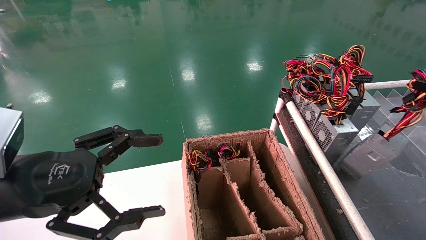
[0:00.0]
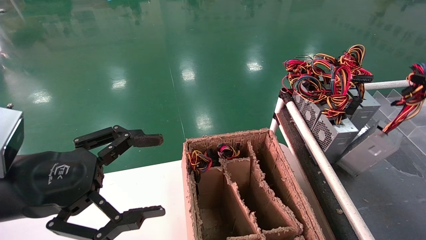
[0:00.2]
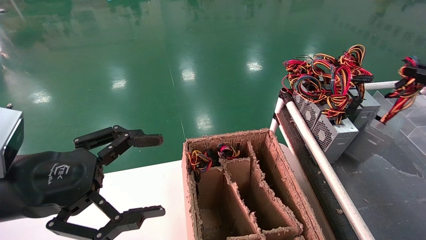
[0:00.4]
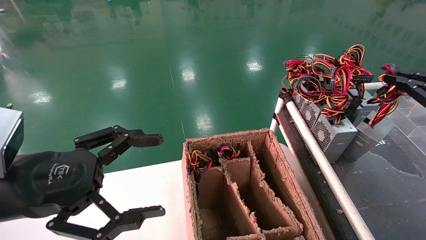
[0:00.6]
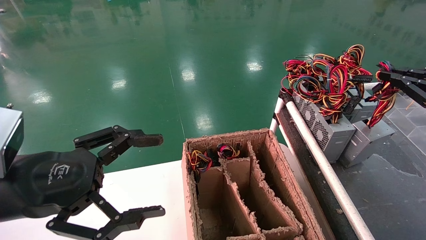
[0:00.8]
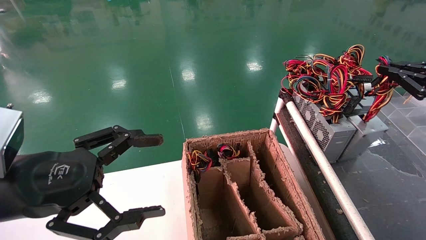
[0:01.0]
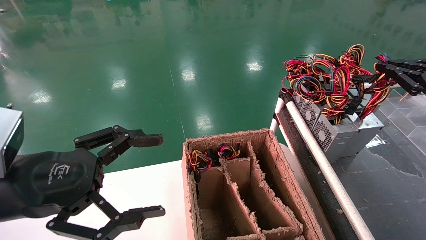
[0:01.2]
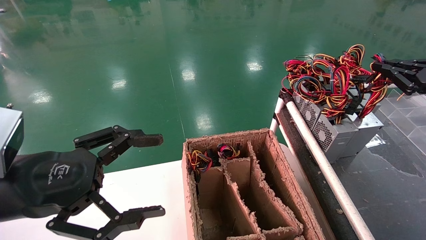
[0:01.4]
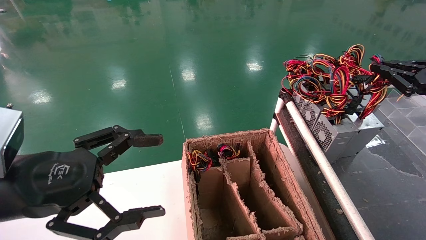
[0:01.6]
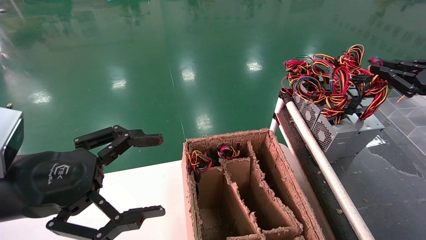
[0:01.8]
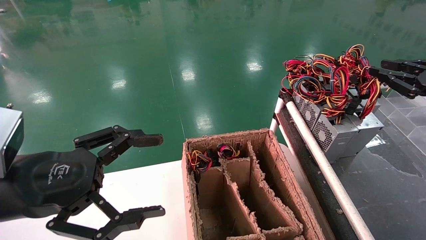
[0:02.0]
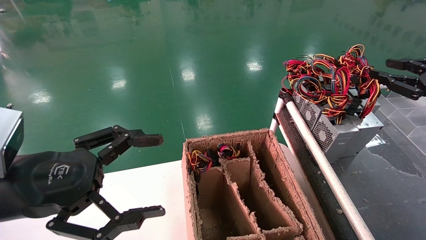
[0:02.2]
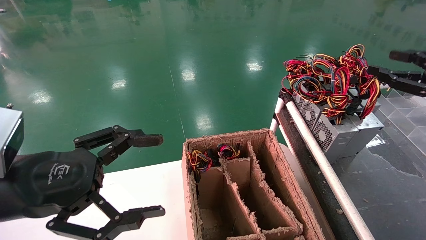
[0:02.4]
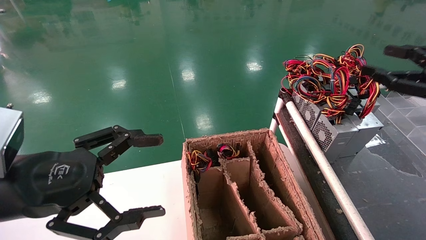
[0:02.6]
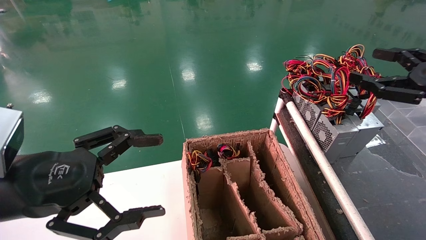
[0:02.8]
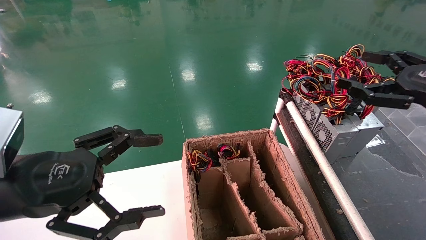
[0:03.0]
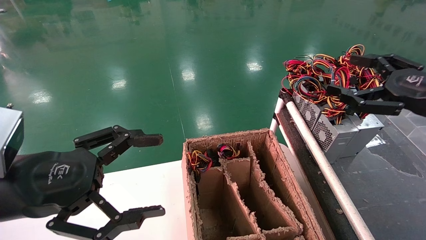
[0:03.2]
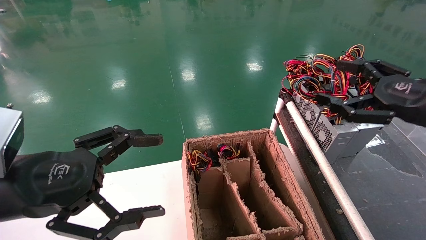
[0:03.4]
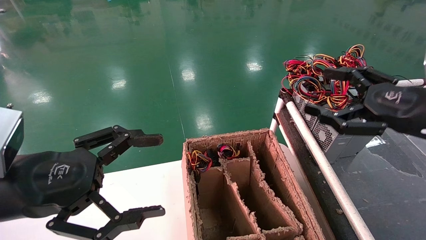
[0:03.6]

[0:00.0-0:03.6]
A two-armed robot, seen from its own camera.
0:00.0 to 0:01.8: The right gripper goes some 10 cm forward.
0:01.8 to 0:03.6: The right gripper is displaced to the left by some 10 cm, and opens up.
